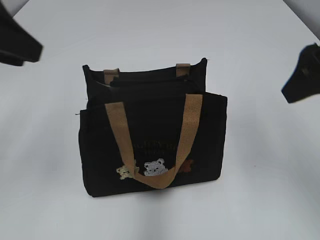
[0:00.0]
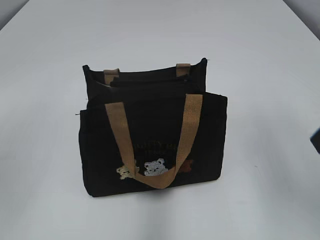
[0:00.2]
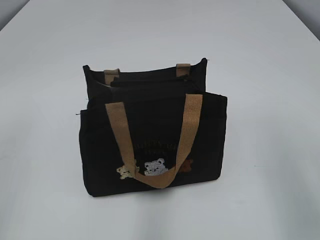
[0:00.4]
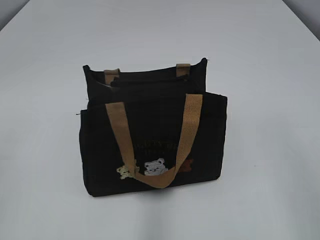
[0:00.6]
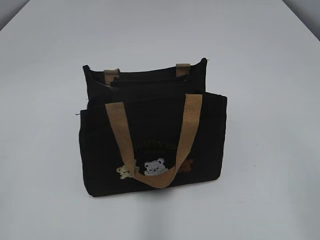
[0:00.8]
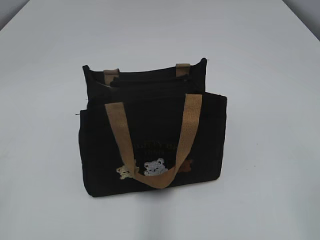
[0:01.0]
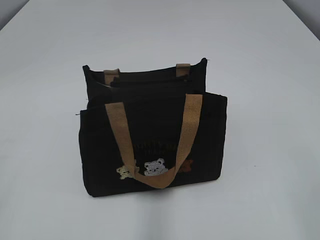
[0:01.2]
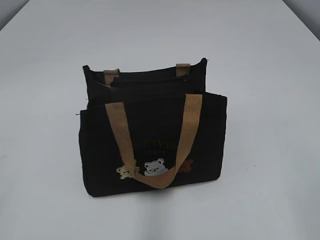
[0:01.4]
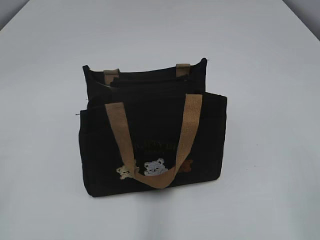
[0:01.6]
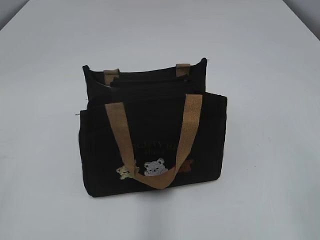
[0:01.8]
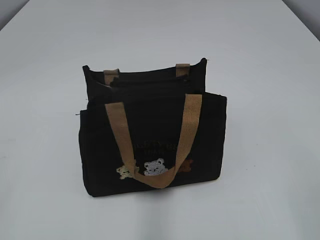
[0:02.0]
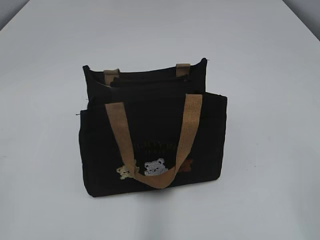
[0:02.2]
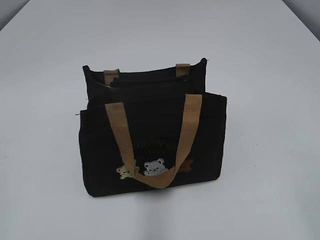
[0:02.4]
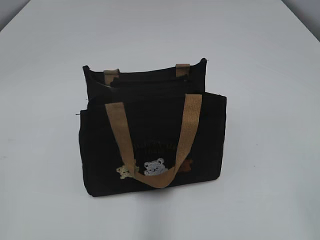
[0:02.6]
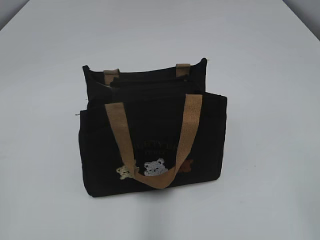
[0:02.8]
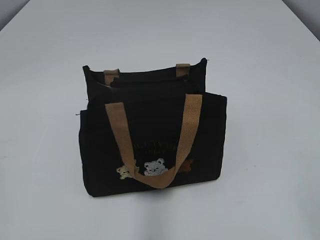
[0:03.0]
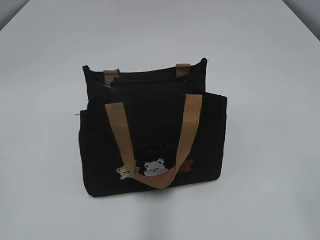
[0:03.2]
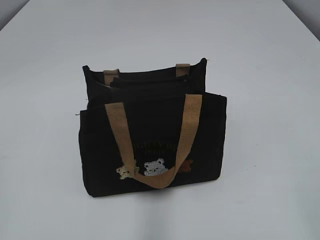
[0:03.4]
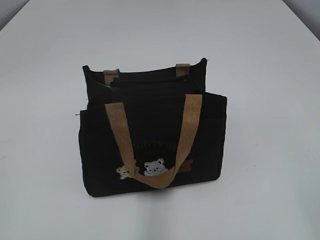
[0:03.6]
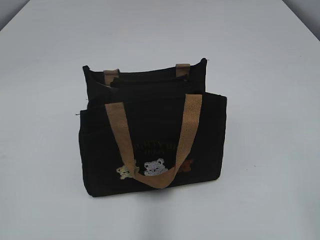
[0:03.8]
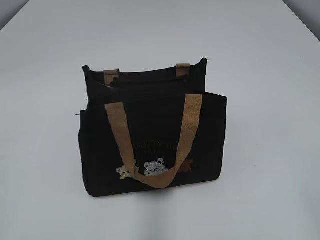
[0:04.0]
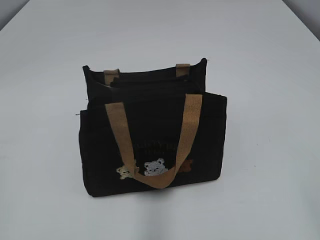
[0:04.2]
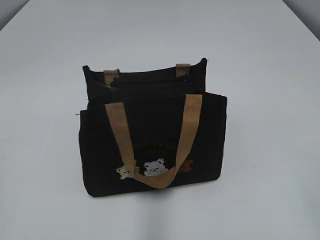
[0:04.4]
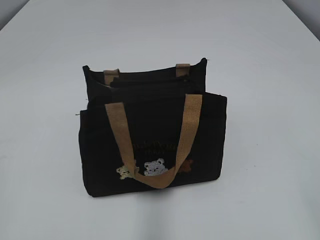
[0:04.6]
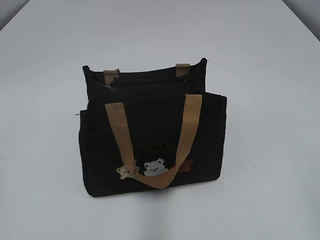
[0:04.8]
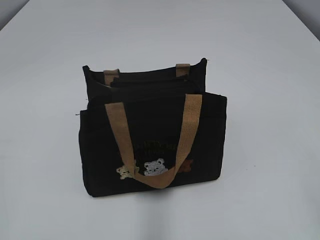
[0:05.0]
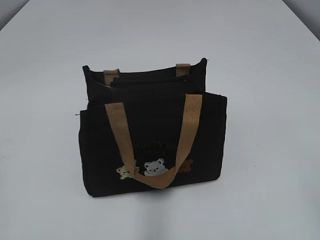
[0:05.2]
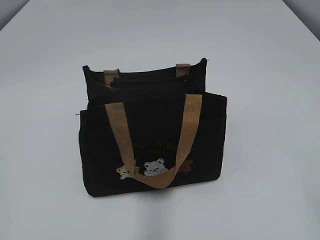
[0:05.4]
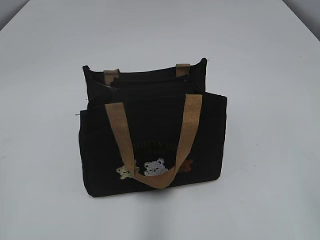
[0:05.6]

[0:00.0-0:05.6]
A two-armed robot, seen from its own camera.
0:00.0 to 0:01.4: The two grippers go roughly 20 cm backward.
0:02.8 to 0:04.2: Both grippers stay put.

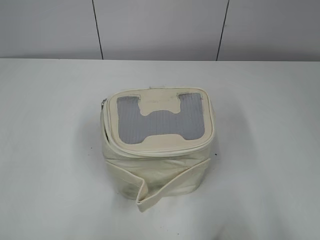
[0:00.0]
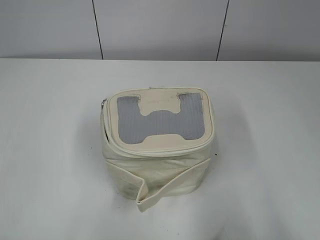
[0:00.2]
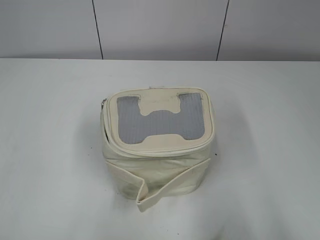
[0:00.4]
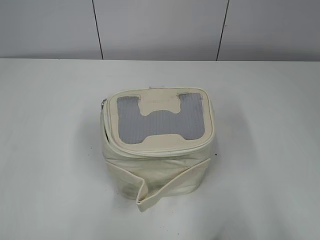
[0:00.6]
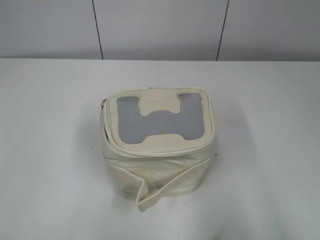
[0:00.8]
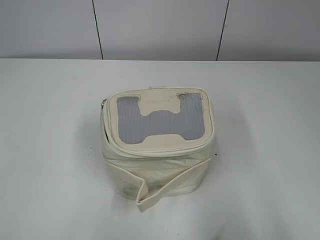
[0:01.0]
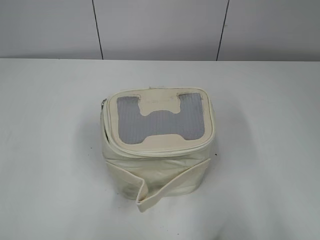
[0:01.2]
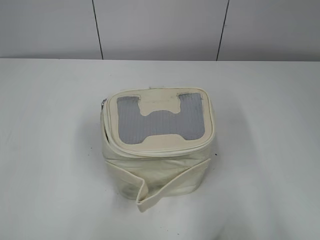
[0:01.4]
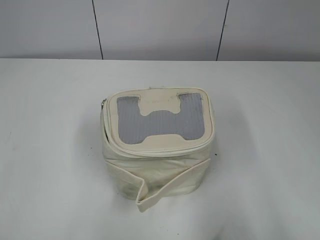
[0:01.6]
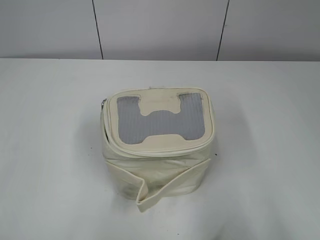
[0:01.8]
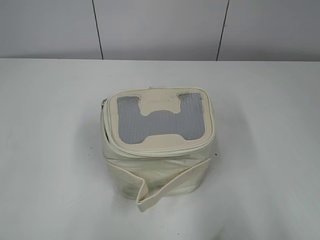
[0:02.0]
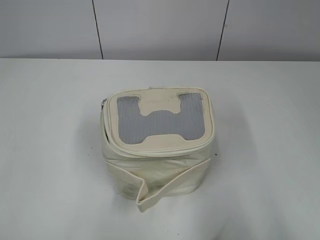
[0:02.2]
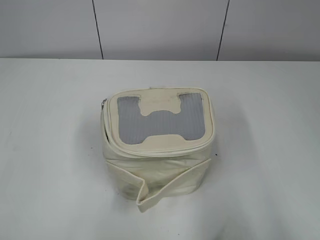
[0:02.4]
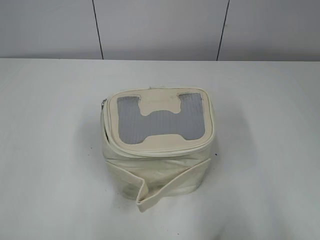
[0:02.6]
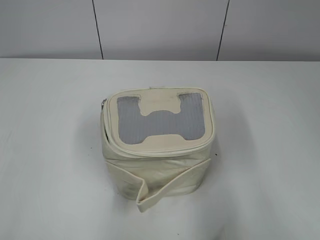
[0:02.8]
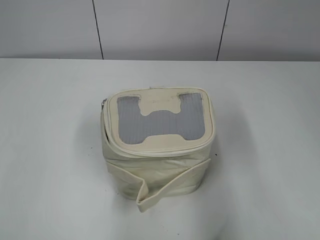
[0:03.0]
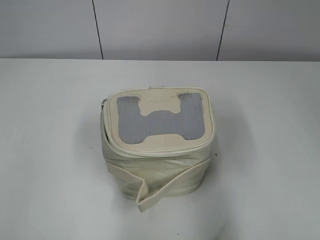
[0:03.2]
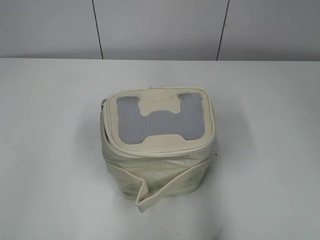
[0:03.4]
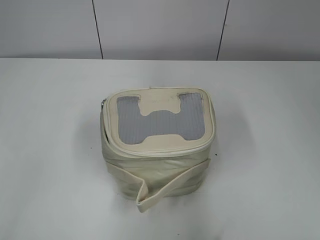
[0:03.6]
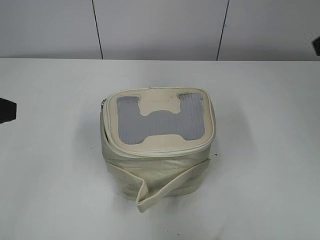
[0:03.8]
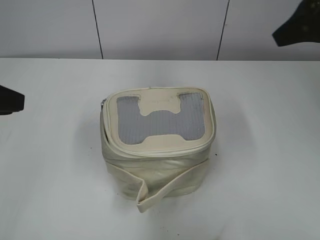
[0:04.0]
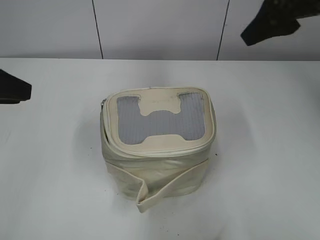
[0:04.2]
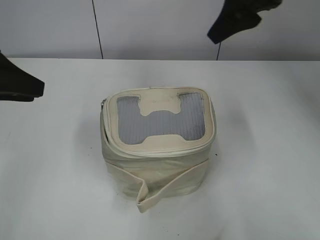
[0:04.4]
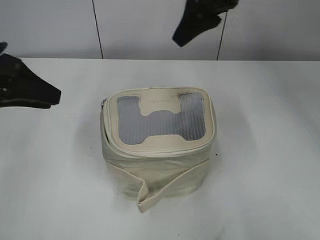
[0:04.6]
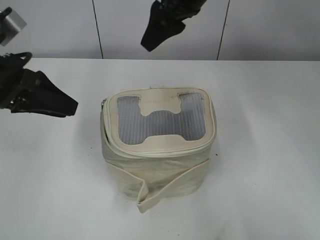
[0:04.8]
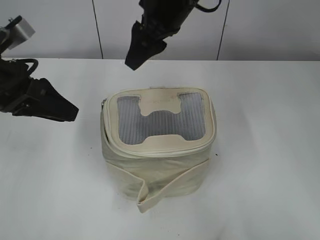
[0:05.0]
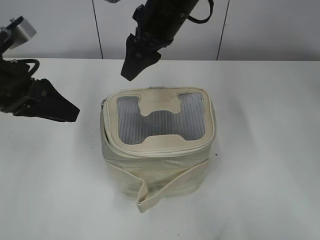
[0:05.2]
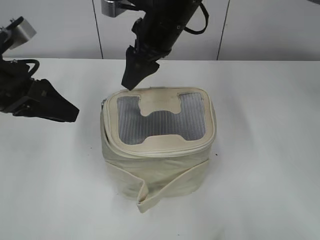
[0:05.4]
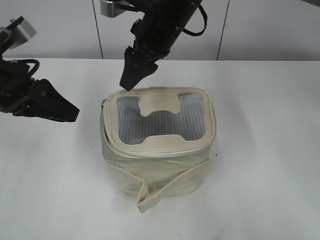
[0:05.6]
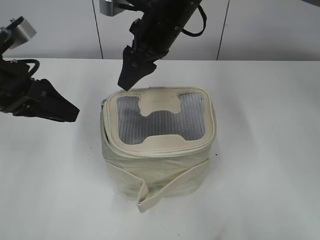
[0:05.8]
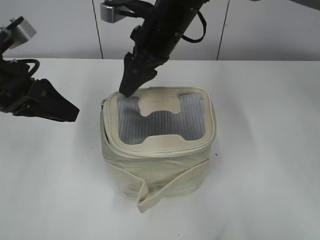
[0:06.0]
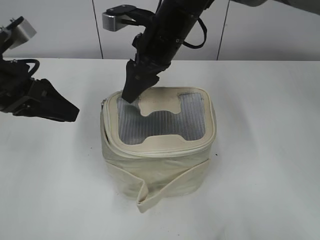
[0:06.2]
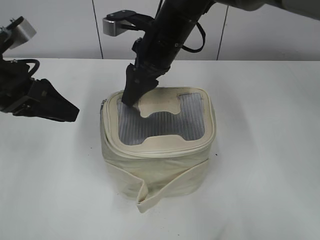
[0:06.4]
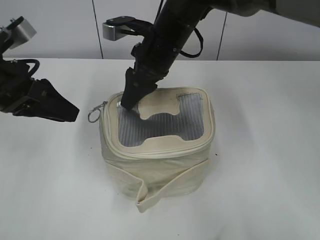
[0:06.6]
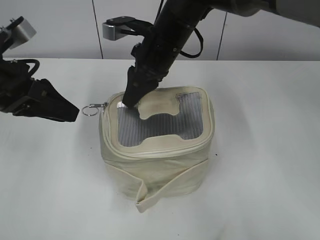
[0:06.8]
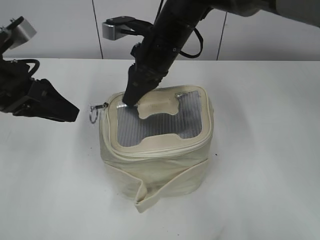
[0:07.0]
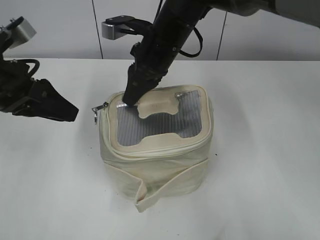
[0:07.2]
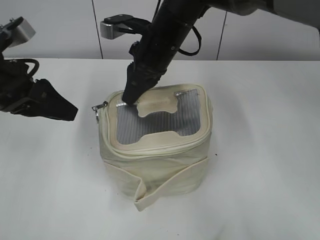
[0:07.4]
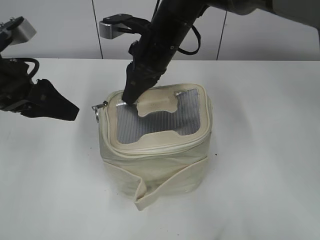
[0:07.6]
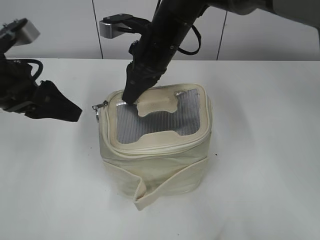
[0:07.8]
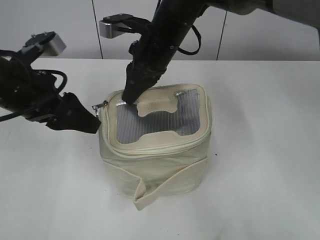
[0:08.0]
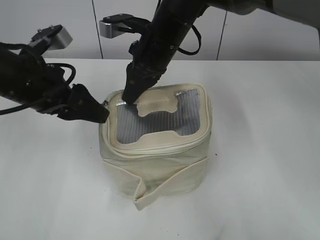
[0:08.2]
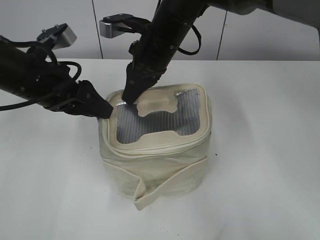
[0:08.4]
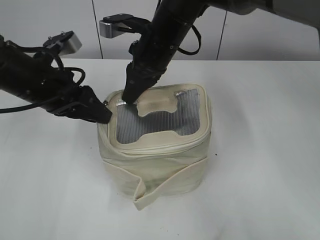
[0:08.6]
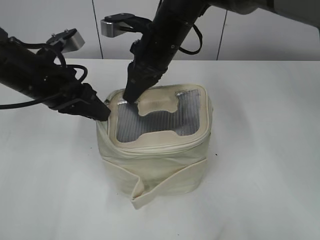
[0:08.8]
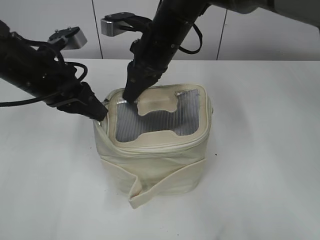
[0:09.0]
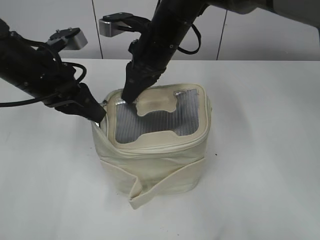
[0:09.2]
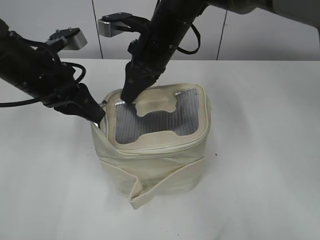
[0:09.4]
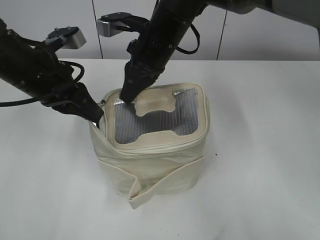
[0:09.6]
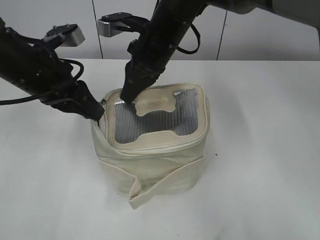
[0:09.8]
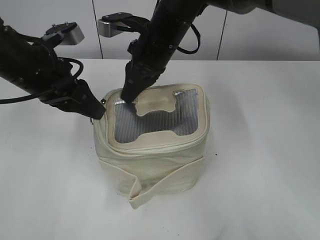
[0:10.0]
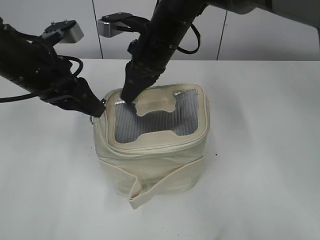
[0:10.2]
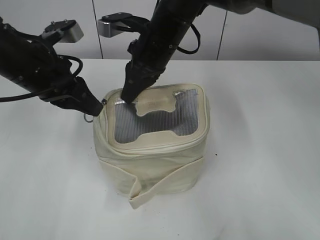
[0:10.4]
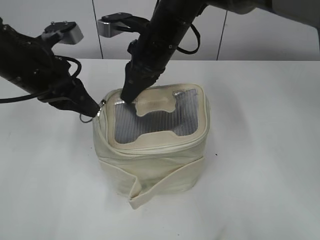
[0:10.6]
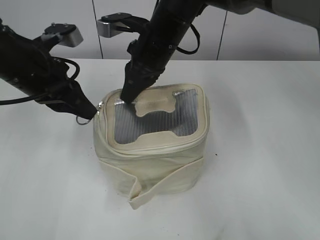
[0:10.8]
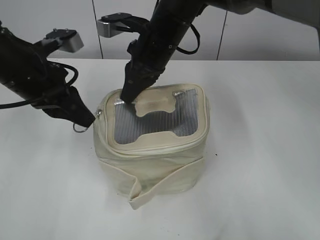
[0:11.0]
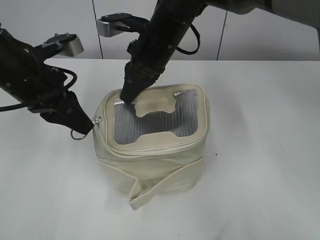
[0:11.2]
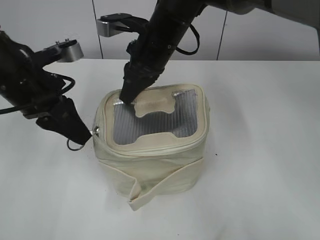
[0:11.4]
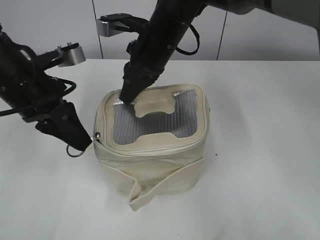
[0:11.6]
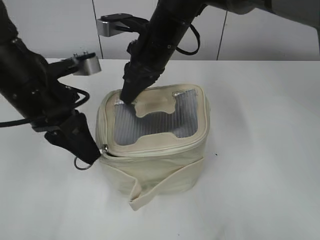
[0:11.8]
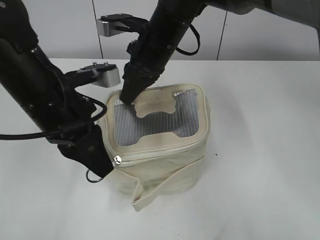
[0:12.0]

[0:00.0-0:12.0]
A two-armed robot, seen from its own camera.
0:01.6 to 0:03.0: The right gripper moves forward, roughly 5 cm.
0:03.0 to 0:04.4: The left gripper shifts roughly 20 cm forward. The right gripper heads forward and to the left, covering roughly 35 cm.
0:04.4 to 0:06.0: The left gripper shifts by roughly 5 cm. The right gripper heads to the left and downward, covering roughly 20 cm.
0:06.0 to 0:07.6: The right gripper closes up.
0:07.6 to 0:09.0: The left gripper travels to the right by approximately 5 cm, and closes its fingers.
0:09.0 to 0:10.4: The two grippers keep their place.
0:10.4 to 0:12.0: The left gripper is displaced backward by some 5 cm.

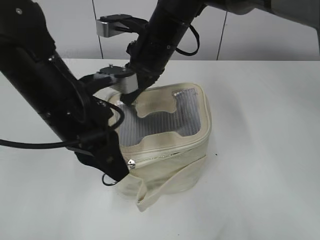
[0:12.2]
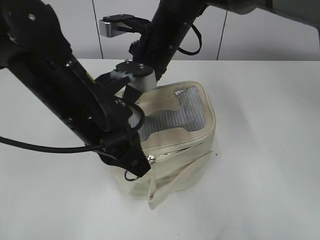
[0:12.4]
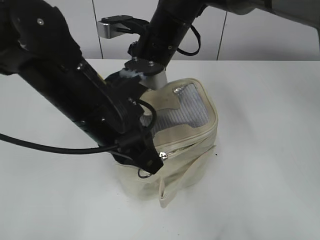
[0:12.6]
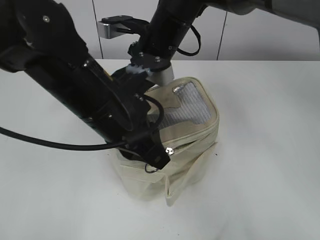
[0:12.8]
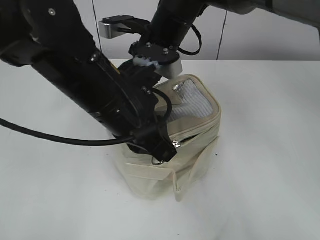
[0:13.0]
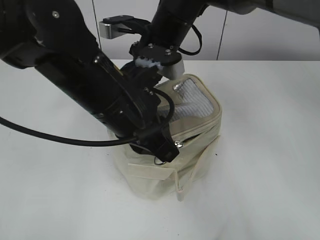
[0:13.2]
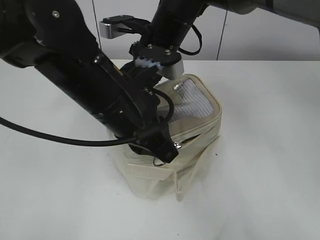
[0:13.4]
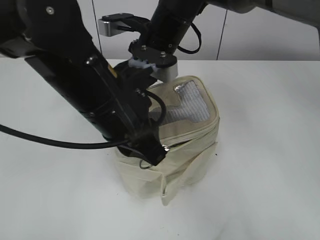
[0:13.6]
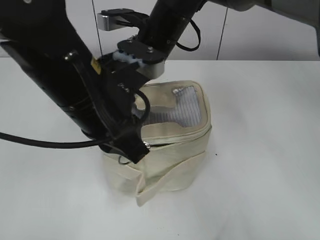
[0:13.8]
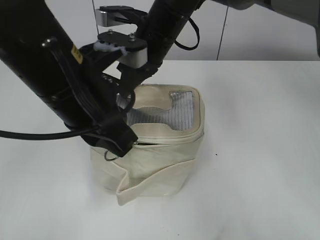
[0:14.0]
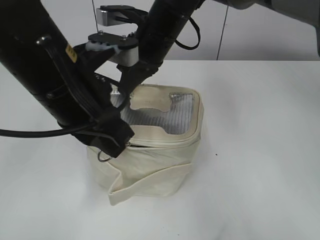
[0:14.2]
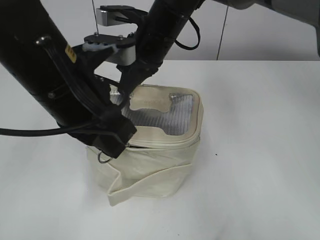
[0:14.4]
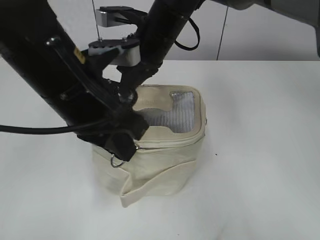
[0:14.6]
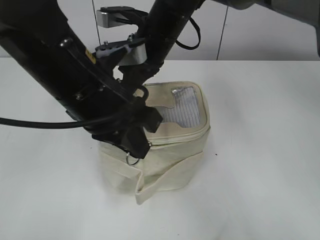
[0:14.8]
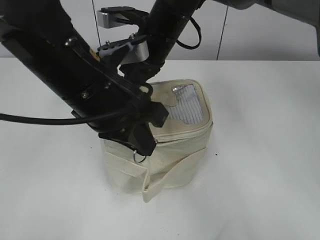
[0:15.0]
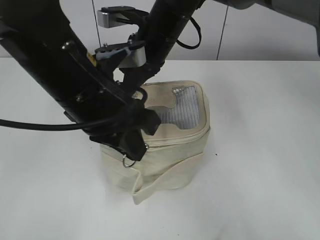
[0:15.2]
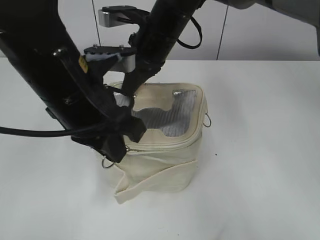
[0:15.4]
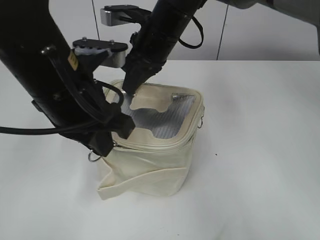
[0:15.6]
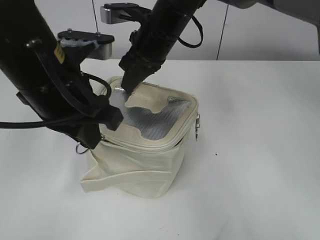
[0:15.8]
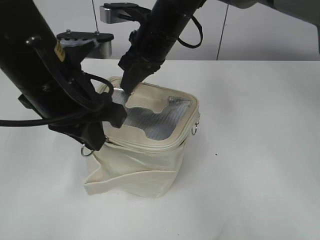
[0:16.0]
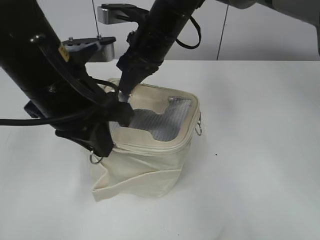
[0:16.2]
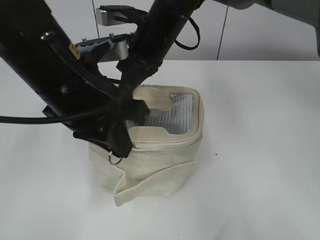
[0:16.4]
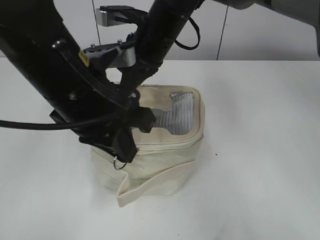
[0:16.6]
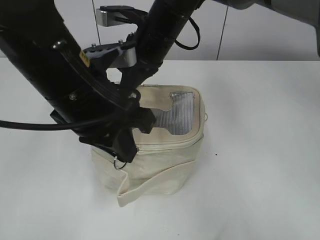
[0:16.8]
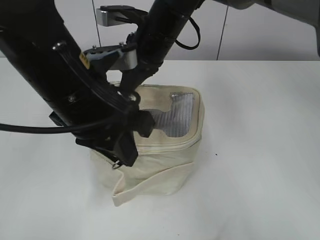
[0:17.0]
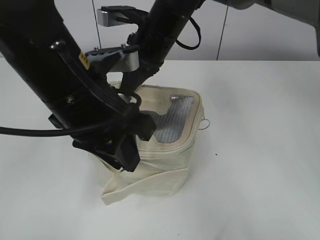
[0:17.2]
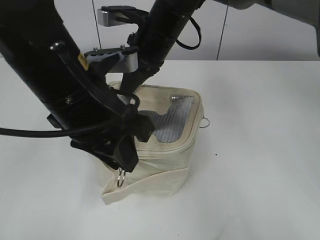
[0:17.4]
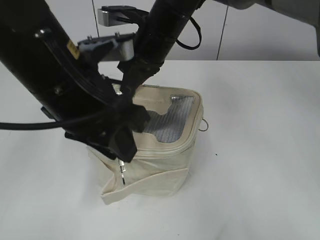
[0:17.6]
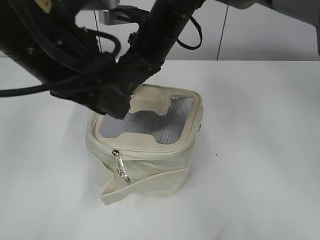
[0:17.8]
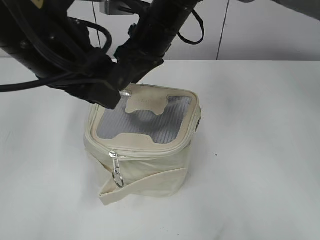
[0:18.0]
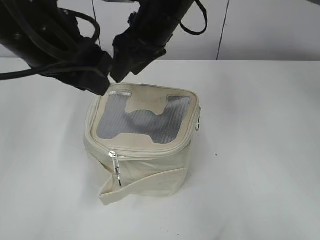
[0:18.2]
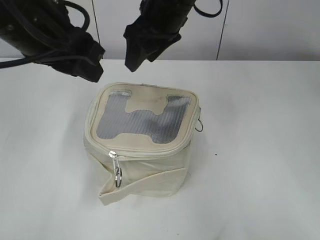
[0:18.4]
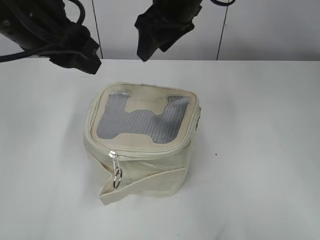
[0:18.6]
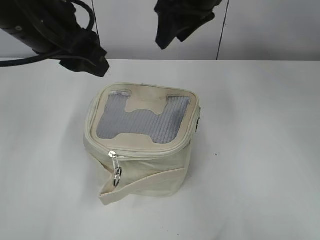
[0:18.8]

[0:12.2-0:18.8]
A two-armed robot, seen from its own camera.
Step, 0:12.2 to 0:17.4: Zip up the bag with your left hand.
0:12.2 to 0:13.8: The left gripper ends up about 5 cm from where it was.
0:15.4 to 0:17.2: The left gripper opens its fingers.
0:17.2 to 0:18.8: The left gripper moves upward, forward and to the left, about 10 cm, and opens, while the right gripper heads upward and to the right, covering about 10 cm, and opens its fingers.
